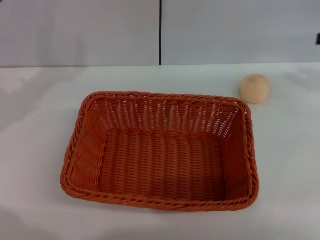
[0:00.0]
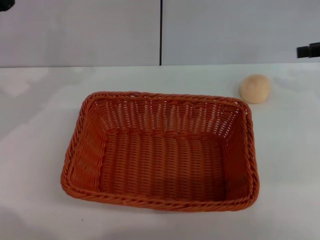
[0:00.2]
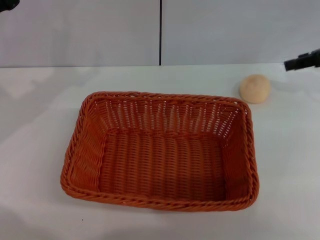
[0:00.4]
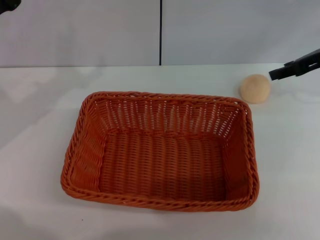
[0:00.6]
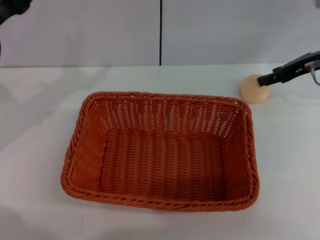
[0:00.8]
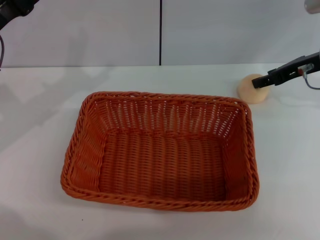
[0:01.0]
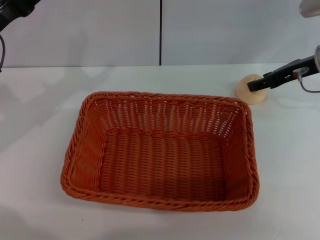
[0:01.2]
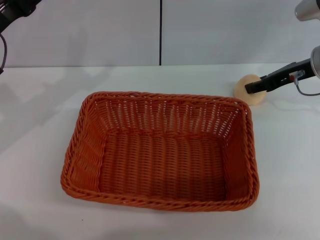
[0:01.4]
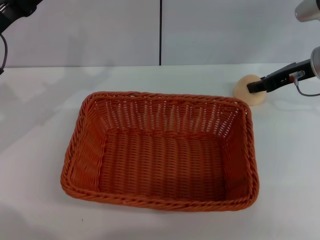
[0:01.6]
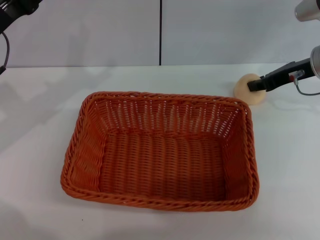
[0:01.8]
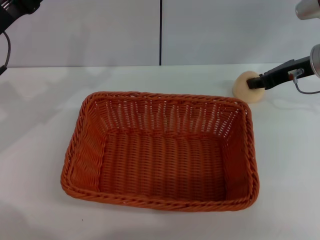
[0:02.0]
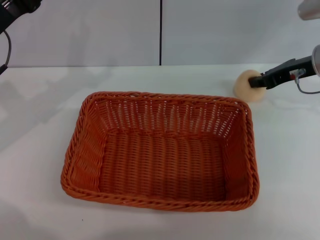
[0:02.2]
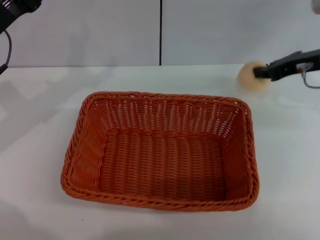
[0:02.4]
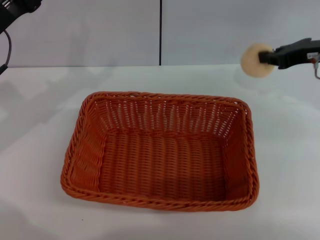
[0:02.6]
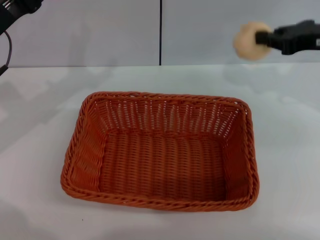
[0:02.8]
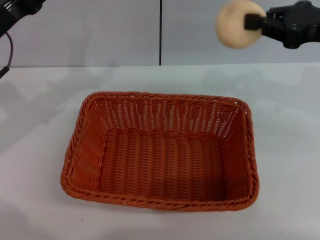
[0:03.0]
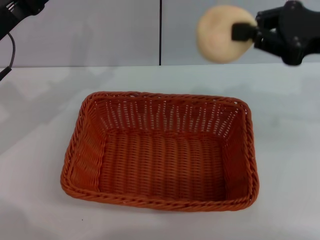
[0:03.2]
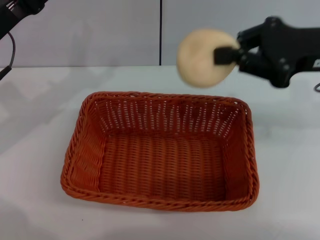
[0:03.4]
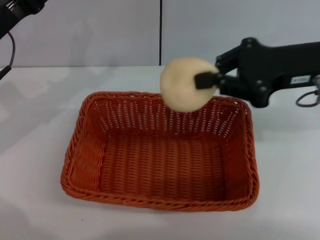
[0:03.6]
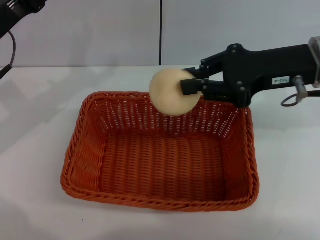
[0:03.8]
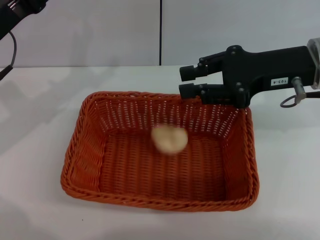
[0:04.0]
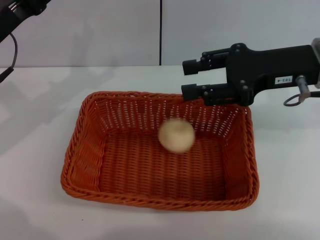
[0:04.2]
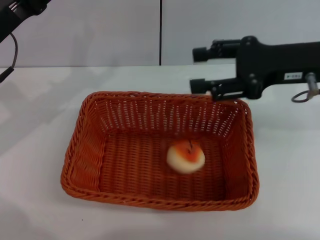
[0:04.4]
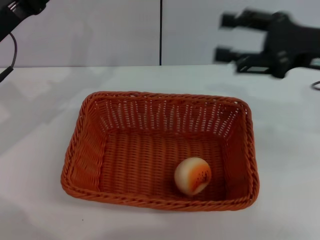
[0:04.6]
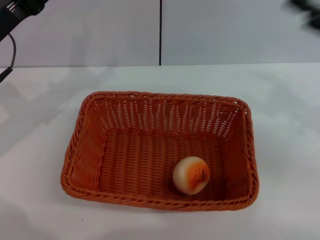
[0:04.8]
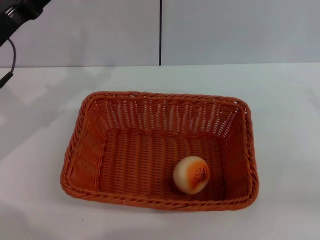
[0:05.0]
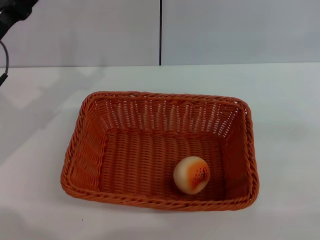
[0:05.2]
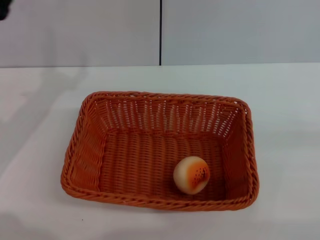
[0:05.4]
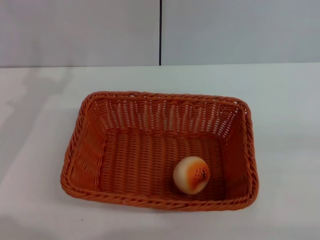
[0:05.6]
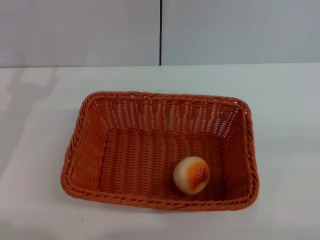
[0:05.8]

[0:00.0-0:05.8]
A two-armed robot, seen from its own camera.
Step, 0:00.0 to 0:02.6: Pick up the egg yolk pastry with the right gripper.
Step, 0:02.8 to 0:04.4: Place the egg yolk pastry into the basket with the right gripper.
0:00.0 to 0:01.4: The right gripper travels to the left by roughly 15 cm.
0:01.4 to 0:02.8: The right gripper travels upward by roughly 5 cm, and closes its fingers.
0:02.8 to 0:04.4: The right gripper shifts about 5 cm to the left, and opens its fingers.
0:04.4 to 0:05.8: The left gripper shifts some 5 cm backward; the right gripper travels to the right, backward and downward by about 25 cm.
